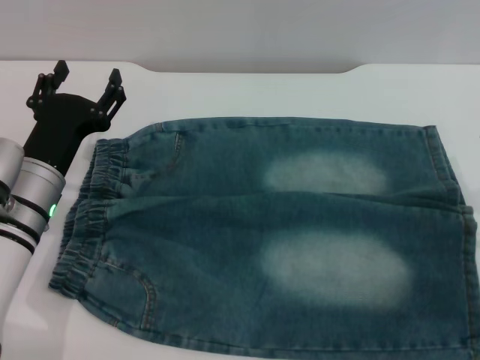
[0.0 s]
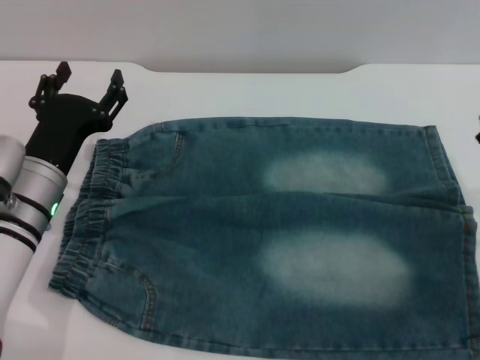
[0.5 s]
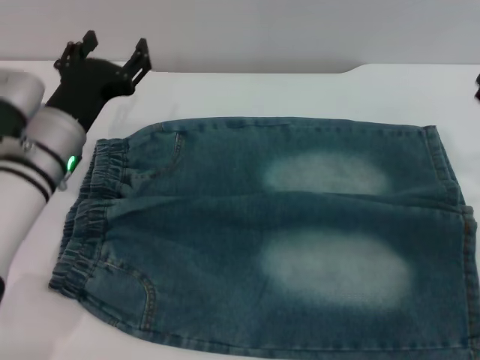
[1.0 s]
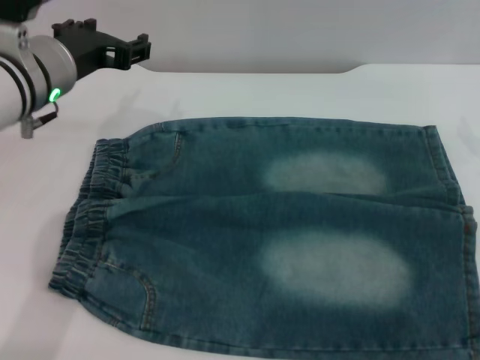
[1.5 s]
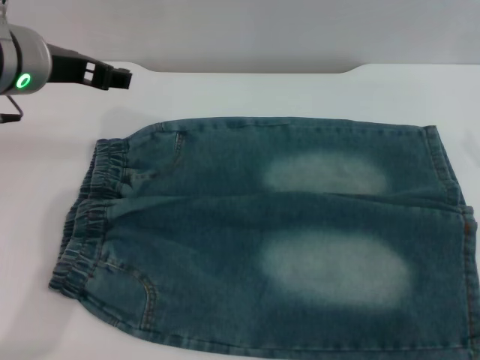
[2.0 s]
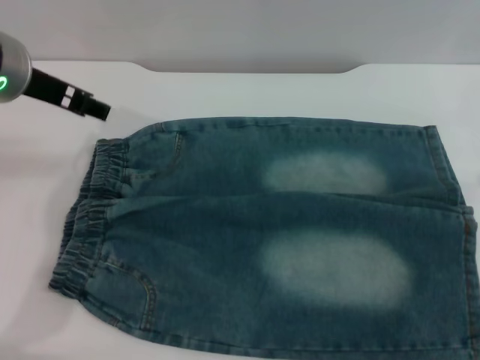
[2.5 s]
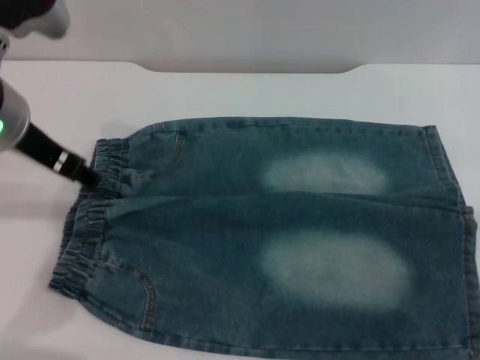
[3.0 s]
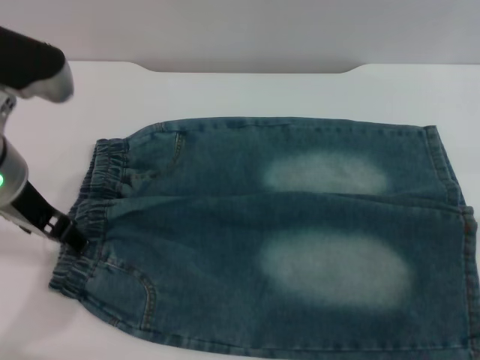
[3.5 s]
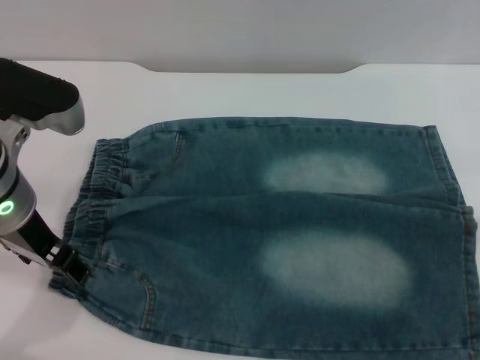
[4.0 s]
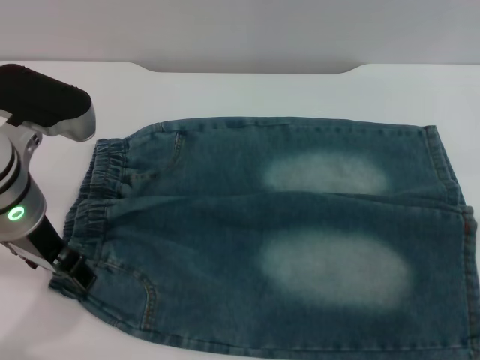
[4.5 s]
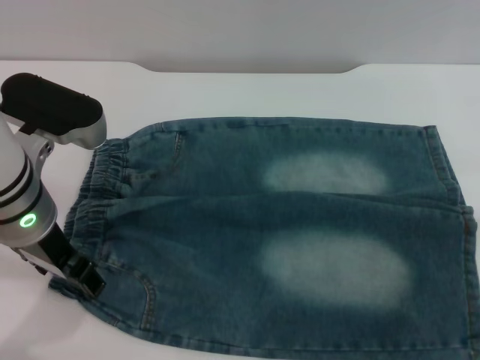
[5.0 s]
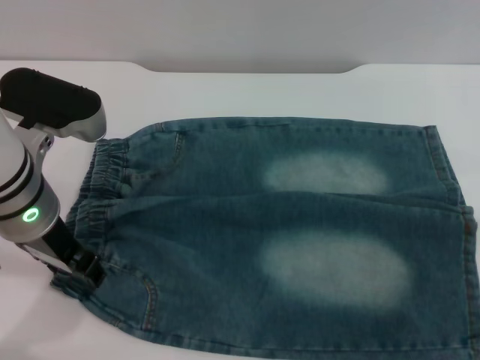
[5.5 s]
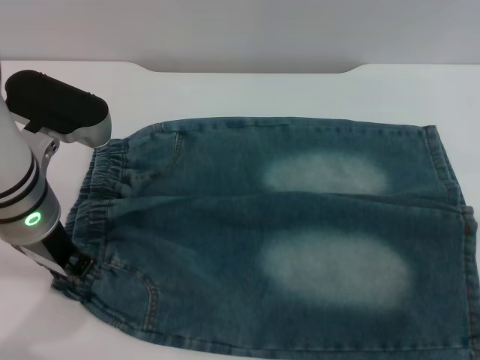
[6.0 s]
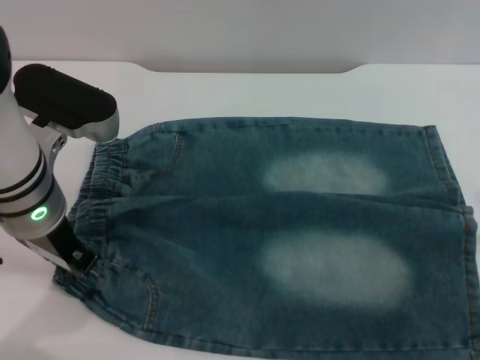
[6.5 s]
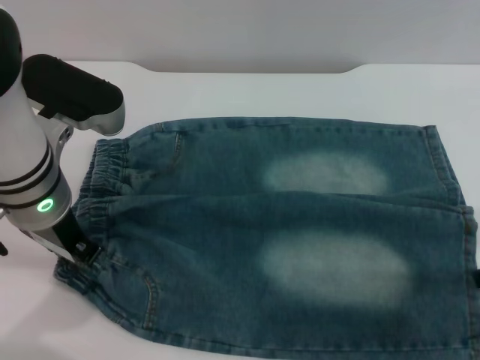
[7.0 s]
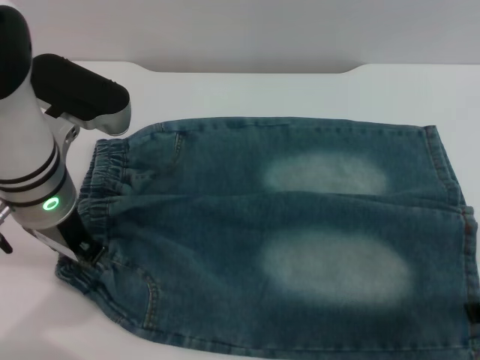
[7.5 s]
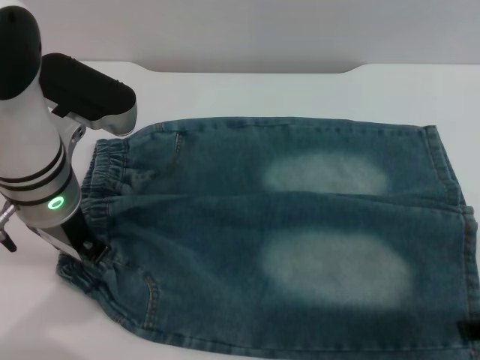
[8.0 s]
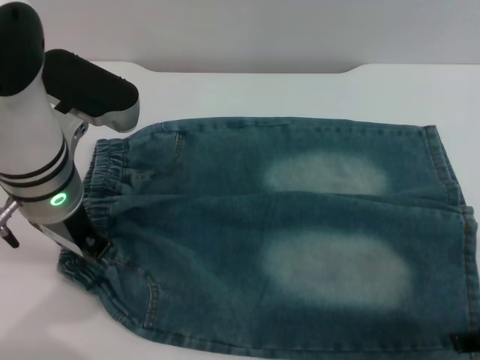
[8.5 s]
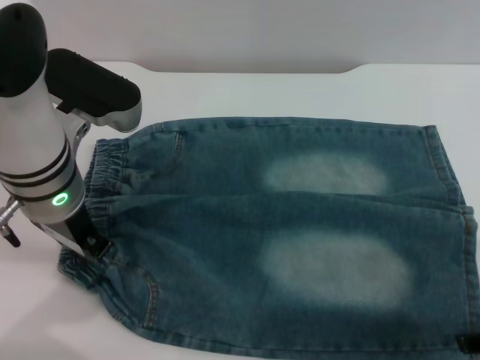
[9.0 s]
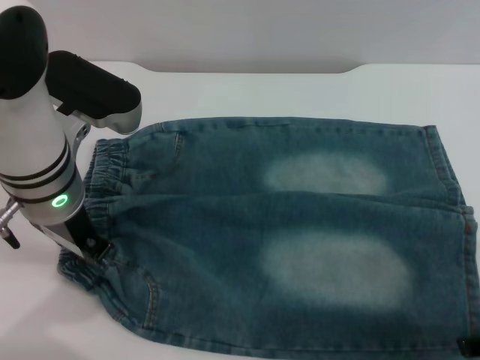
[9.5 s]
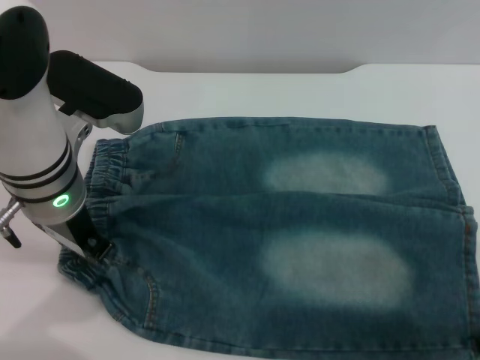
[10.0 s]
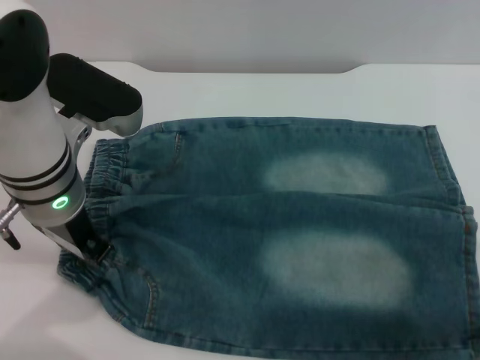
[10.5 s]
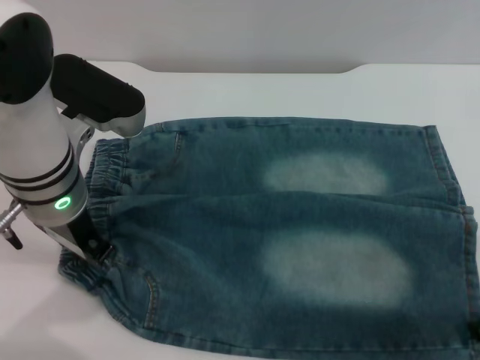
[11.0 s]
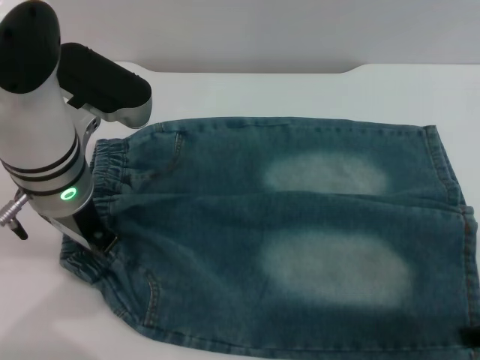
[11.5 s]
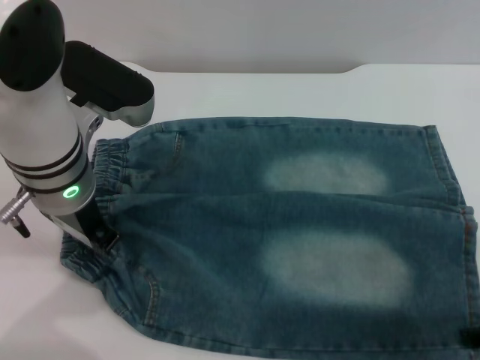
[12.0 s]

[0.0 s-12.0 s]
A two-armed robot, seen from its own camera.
0.0 to 2.0 s: The left gripper goes roughly 15 cm upward.
2.0 to 4.0 s: The left gripper is displaced downward by roughly 5 cm.
4.0 to 6.0 s: The left gripper closes its fingers.

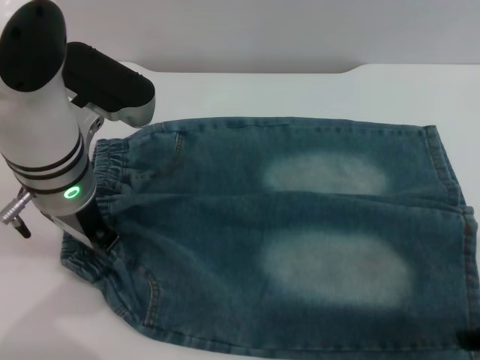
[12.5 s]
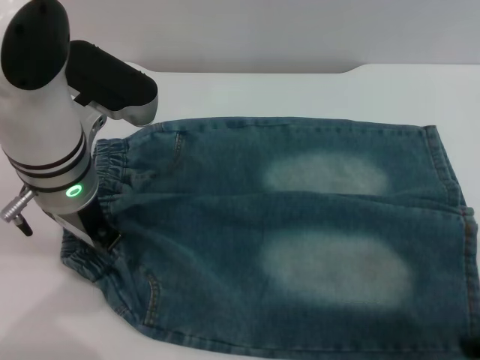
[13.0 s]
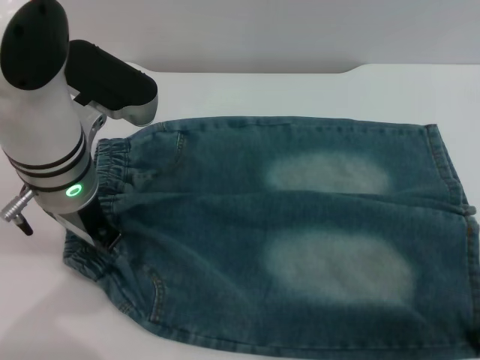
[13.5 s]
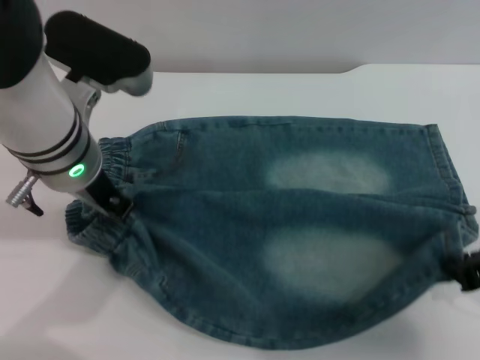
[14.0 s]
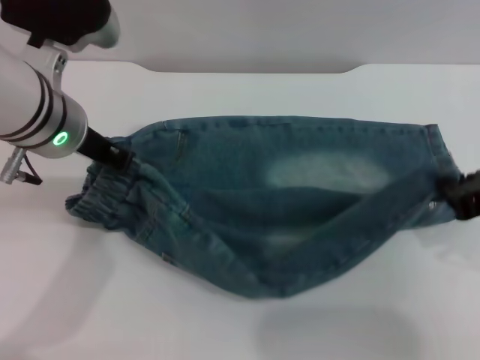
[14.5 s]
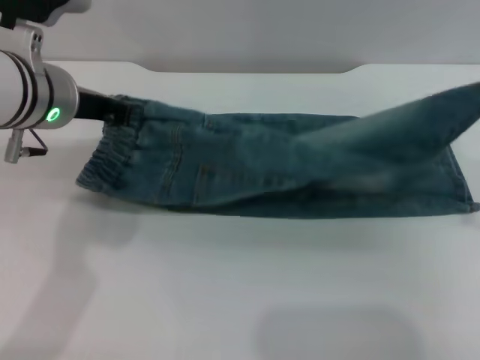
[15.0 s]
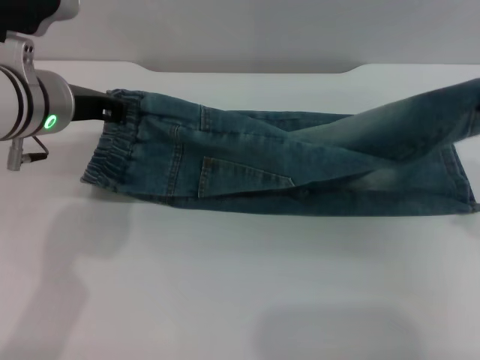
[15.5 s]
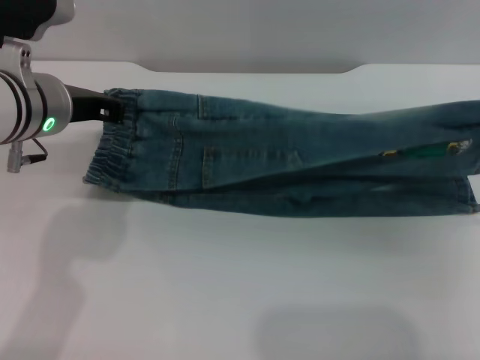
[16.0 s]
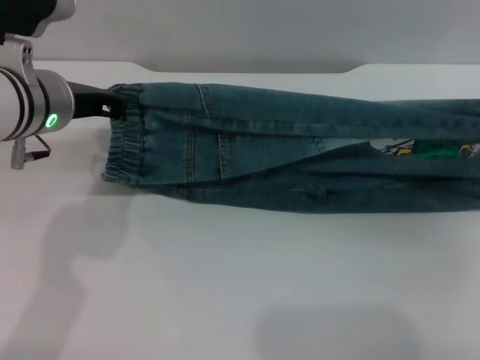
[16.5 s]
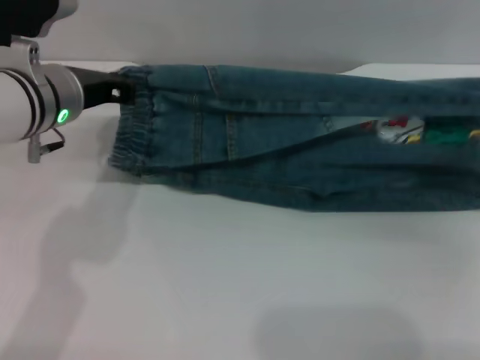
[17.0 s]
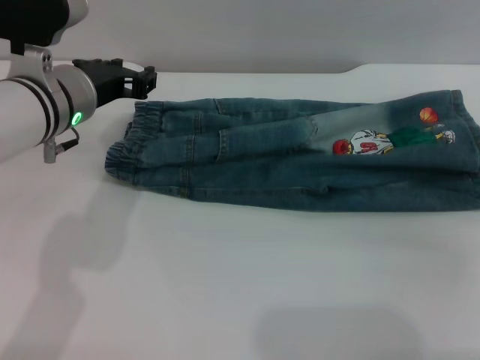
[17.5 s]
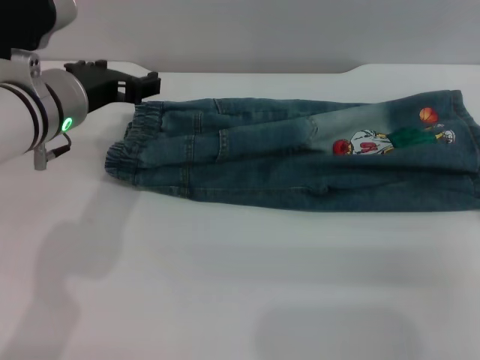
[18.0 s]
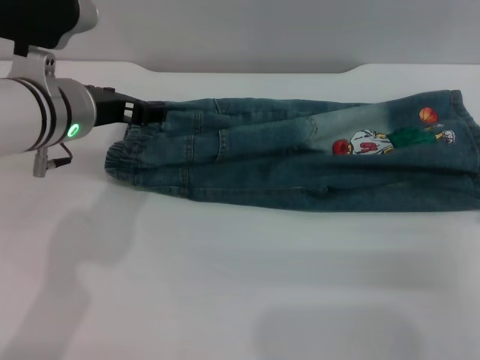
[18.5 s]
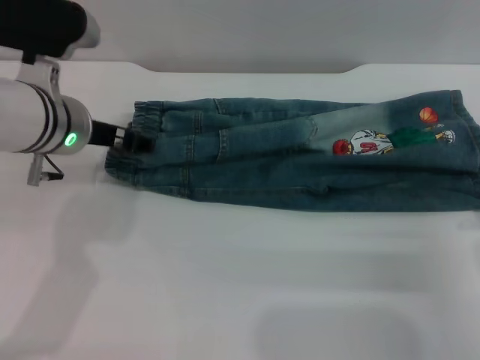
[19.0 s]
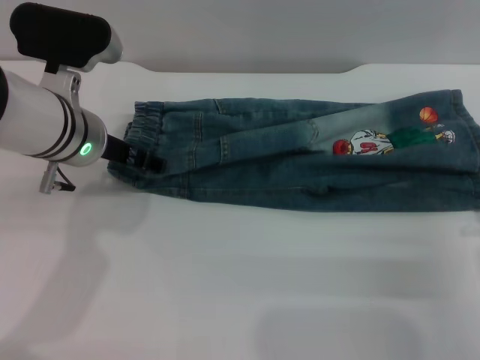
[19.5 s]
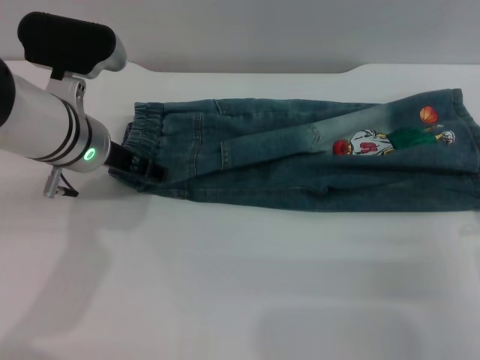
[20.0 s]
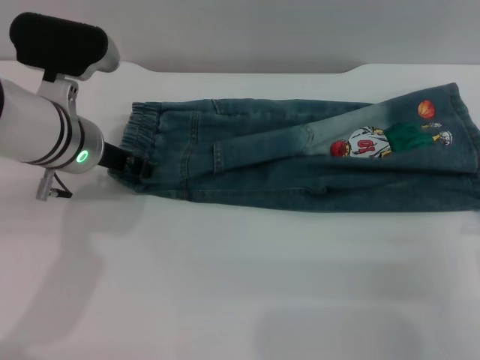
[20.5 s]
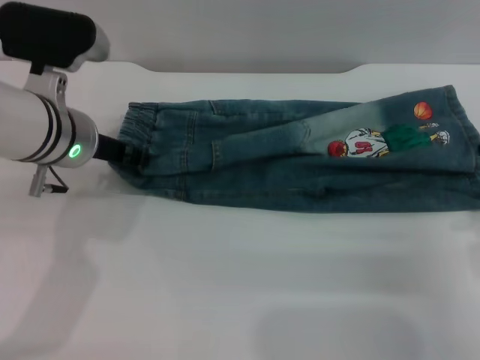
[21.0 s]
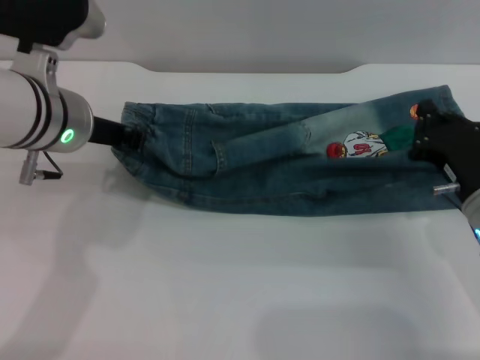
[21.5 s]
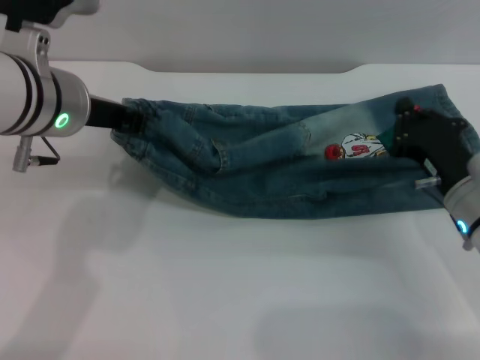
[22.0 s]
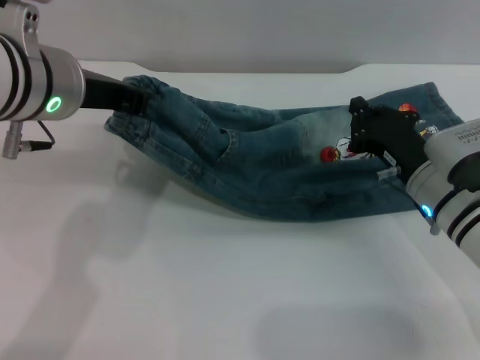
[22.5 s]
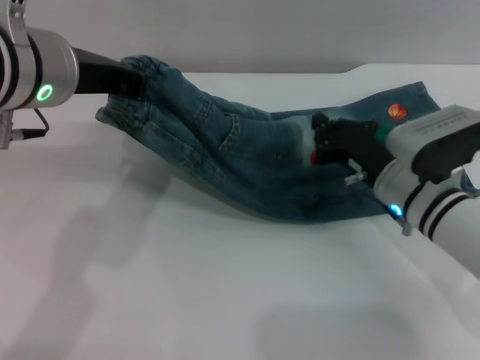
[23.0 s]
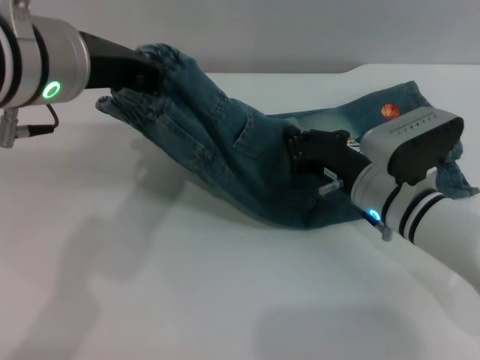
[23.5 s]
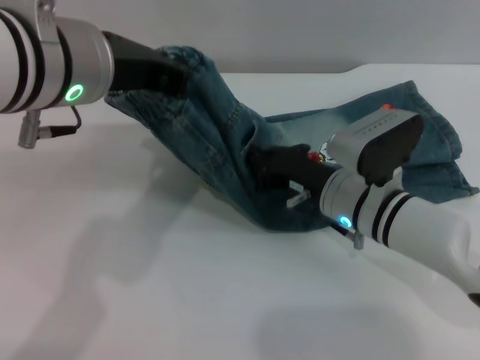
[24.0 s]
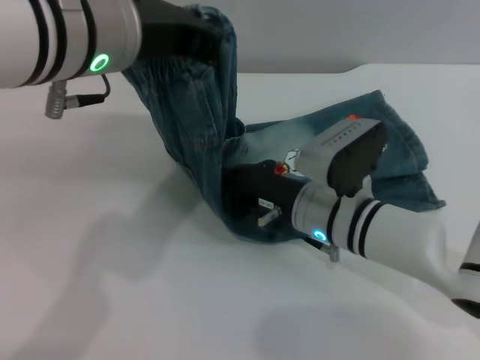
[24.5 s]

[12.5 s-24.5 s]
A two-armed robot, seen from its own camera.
Step, 12.5 to 18.0 s: Fold the bottom of the pants upward with both grippers.
12.5 to 14.5 s: The right gripper goes about 5 cm upward, and closes its fingers.
14.5 to 16.5 s: The right gripper travels to the right and downward by some 10 cm.
16.5 to 18.5 s: The right gripper moves roughly 5 cm, and opens up. Meanwhile the left gripper opens.
18.5 to 20.5 s: The right gripper closes.
20.5 to 22.5 s: The right gripper heads forward and to the left, covering about 10 cm, while the left gripper moves upward, roughly 10 cm, and closes its fingers.
22.5 to 24.5 s: The left gripper heads upward, covering approximately 5 cm, while the right gripper shifts about 10 cm to the left.

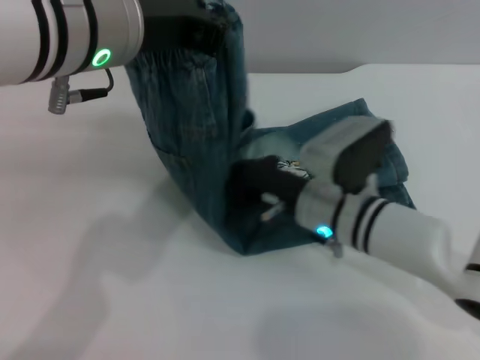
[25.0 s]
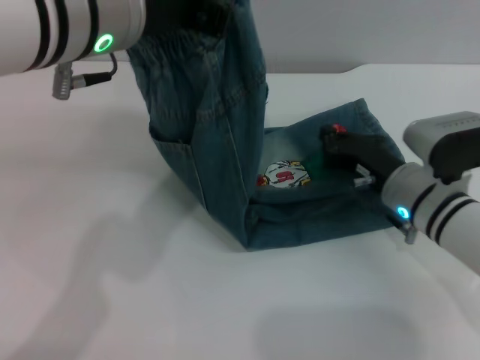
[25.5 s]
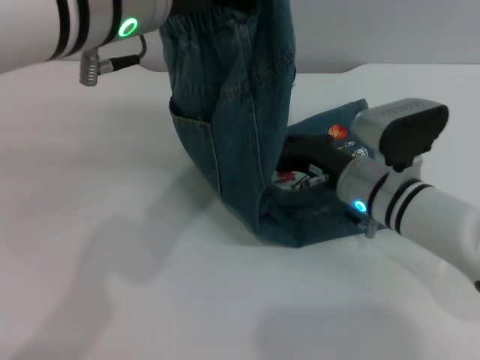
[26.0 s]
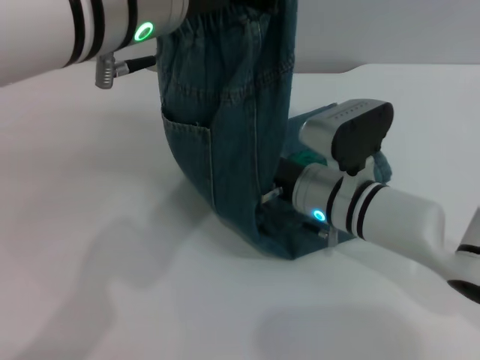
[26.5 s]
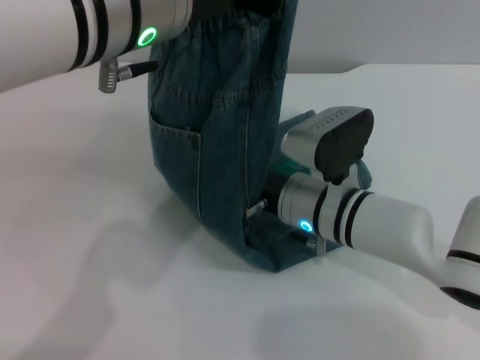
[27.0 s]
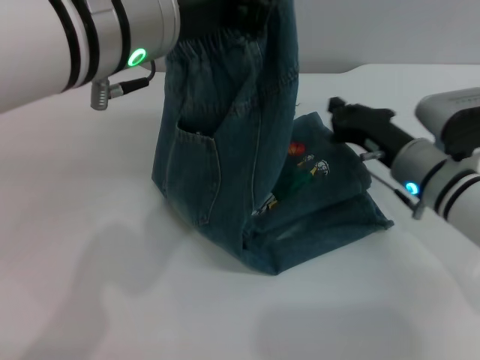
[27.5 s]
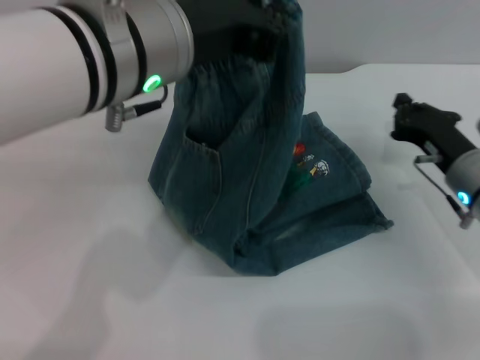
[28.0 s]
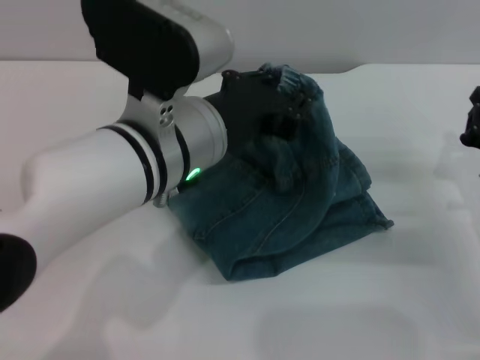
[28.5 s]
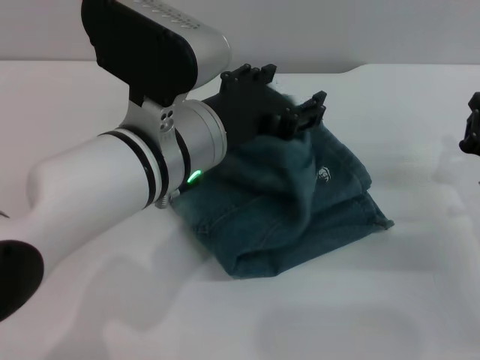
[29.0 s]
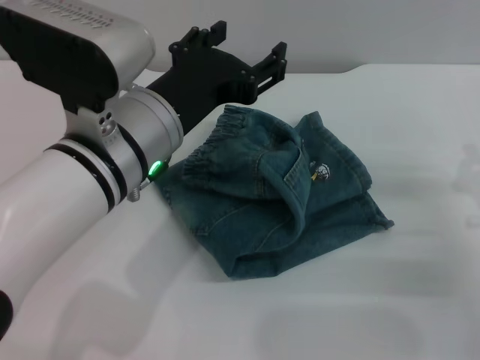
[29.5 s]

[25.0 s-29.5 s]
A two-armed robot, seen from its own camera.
25.0 to 27.0 s: The right gripper goes to the right and returns, roughly 10 cm each way.
27.0 to 29.5 s: The left gripper shifts some 10 cm downward, and opens up. Meanwhile the right gripper heads to the right, covering some 20 cm.
